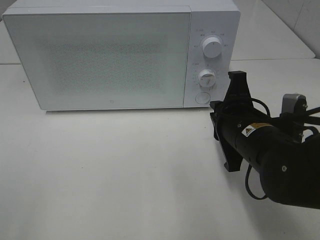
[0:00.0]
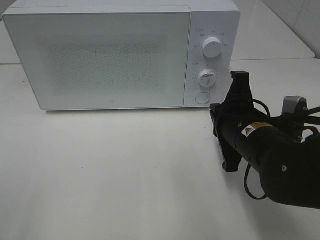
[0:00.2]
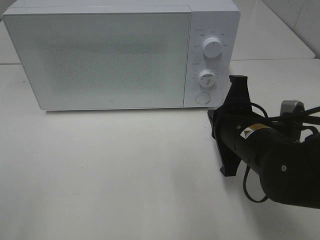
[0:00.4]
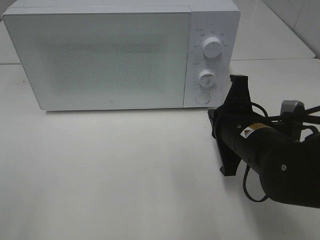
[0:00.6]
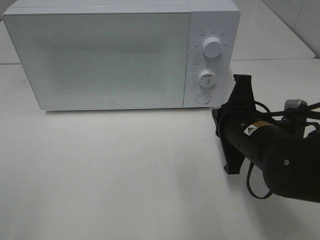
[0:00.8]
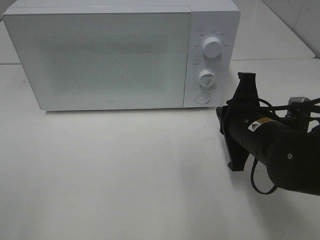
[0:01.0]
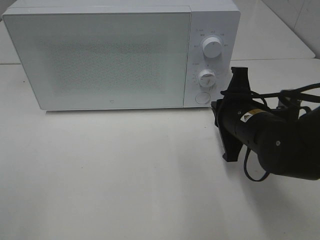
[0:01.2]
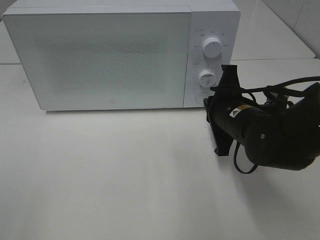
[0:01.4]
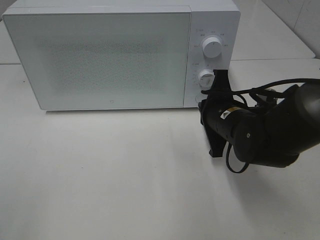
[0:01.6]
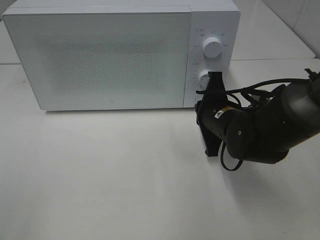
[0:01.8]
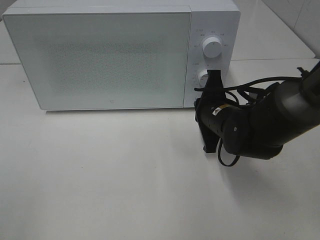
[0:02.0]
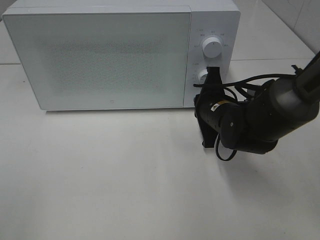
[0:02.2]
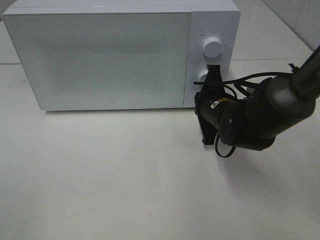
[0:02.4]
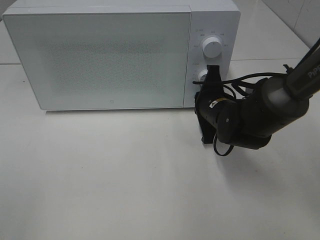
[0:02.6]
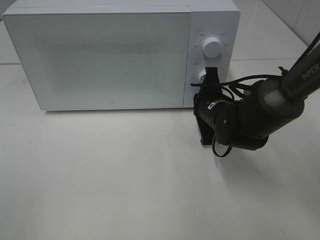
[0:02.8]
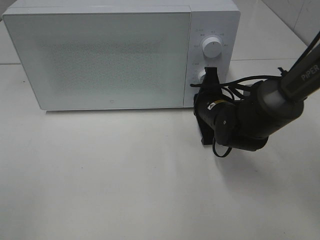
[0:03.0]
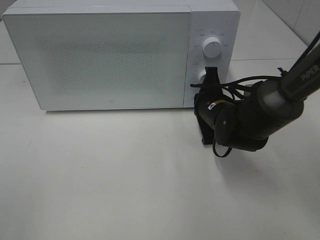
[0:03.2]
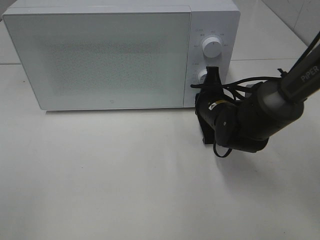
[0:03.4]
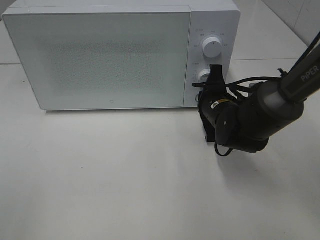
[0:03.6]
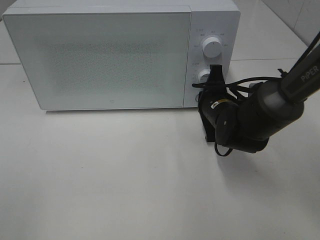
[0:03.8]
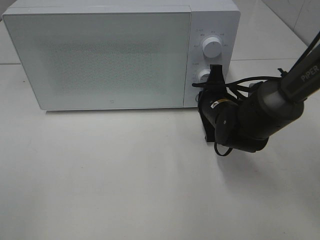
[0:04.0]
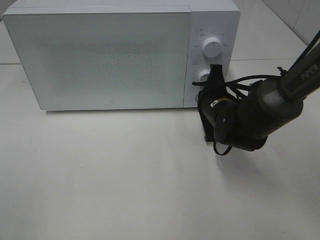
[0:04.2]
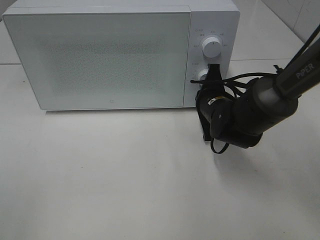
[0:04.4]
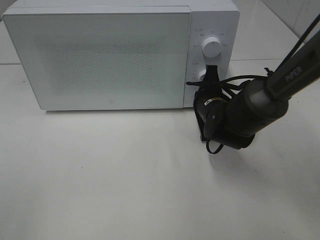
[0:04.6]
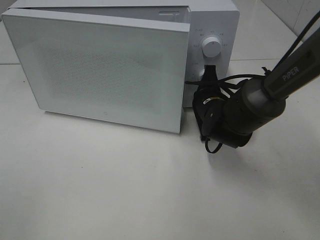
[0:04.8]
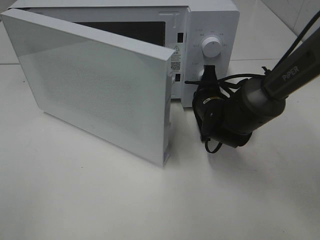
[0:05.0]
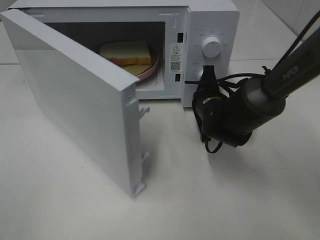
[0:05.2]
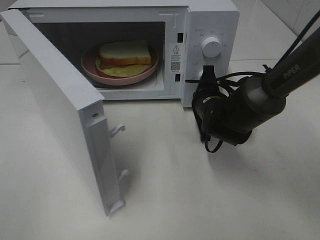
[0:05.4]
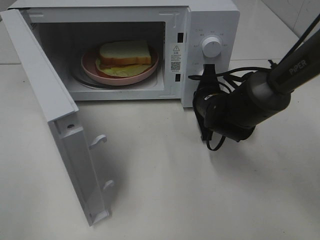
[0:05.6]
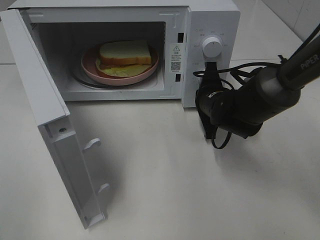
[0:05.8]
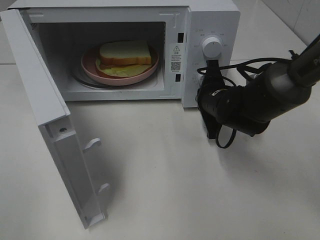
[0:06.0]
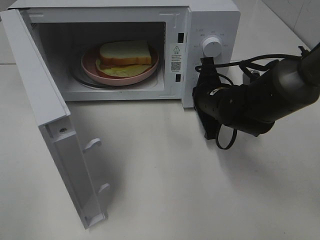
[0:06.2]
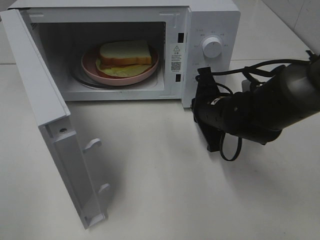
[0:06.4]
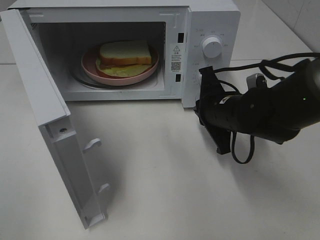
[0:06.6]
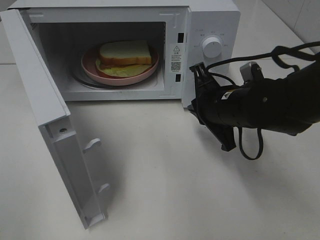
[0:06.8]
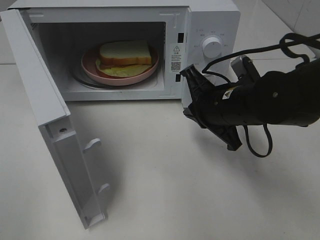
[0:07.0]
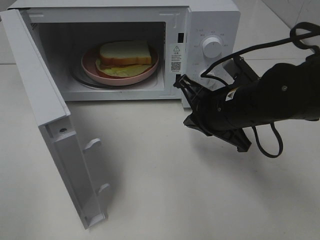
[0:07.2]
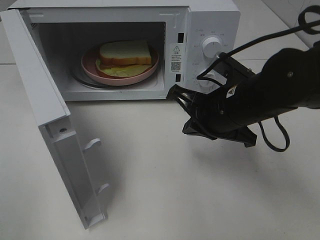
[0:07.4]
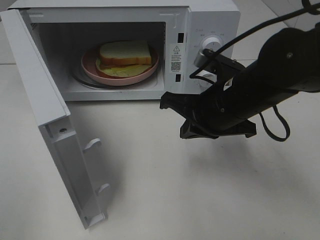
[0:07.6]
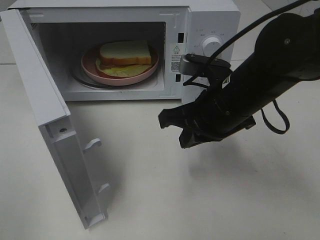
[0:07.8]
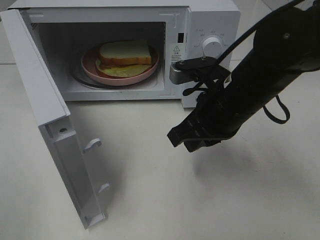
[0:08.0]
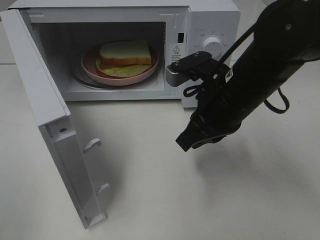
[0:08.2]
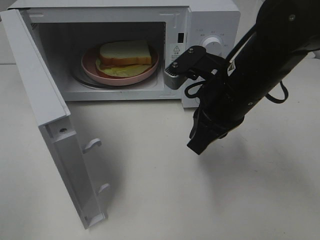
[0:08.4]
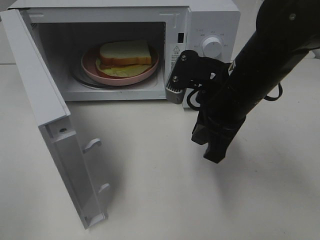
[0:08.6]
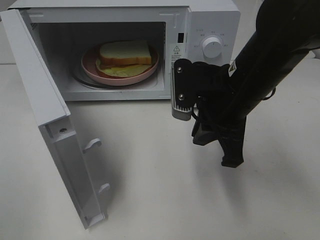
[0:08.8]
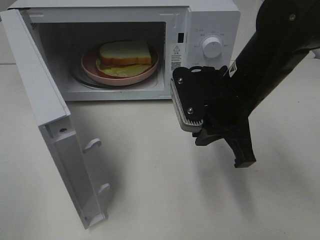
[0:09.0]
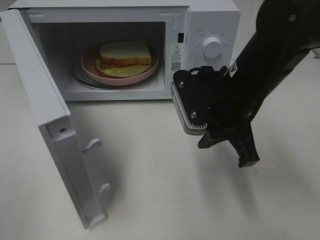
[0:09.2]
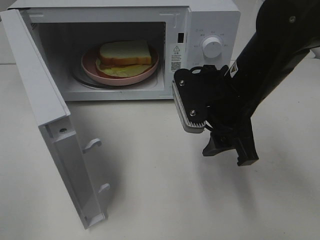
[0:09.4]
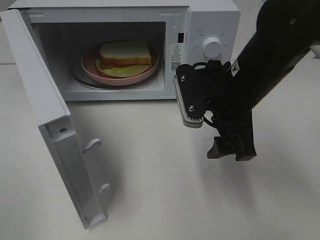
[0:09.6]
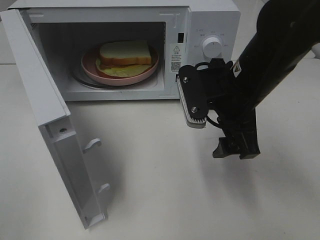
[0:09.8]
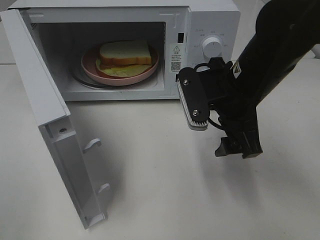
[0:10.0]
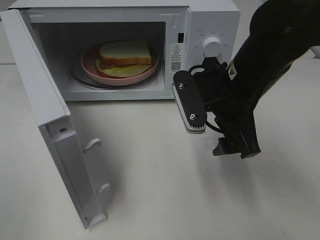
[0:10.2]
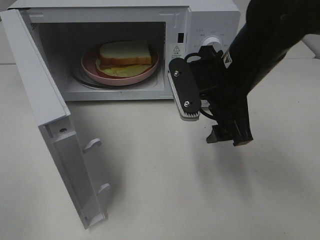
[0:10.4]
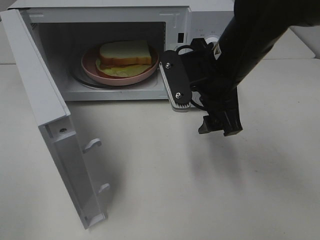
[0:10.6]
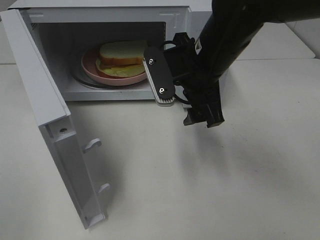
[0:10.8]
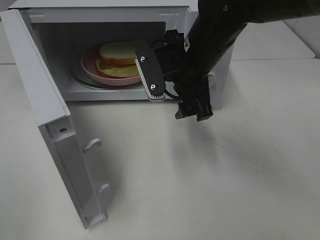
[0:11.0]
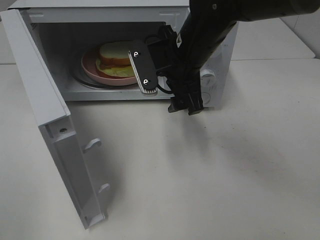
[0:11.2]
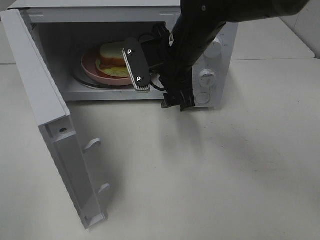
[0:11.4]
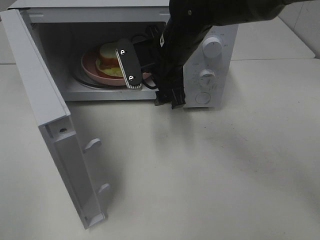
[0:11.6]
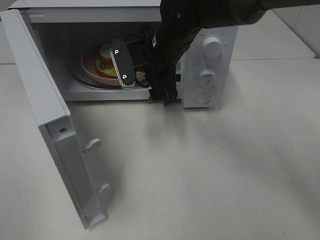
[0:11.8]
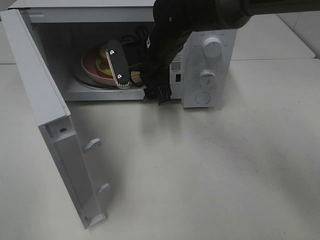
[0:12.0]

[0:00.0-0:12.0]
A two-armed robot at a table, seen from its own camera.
Task of the whole recording: Heat Sandwich.
Step, 0:00.0 to 0:06.2: Right hand: press the switch.
0:00.0 to 0:01.6: The right gripper goes approximately 5 cm forward.
0:01.6 to 0:03.0: The right gripper goes roughly 5 cm forward.
0:03.0 to 0:04.4: Both grippers stay put.
0:06.0 to 0:07.6: The right gripper shifts some 10 cm backward and upward.
0:09.0 to 0:10.4: The right gripper opens up.
0:10.4 to 0:12.0: The right gripper moves forward and to the left, approximately 15 cm.

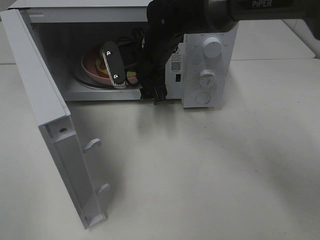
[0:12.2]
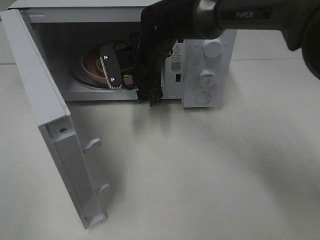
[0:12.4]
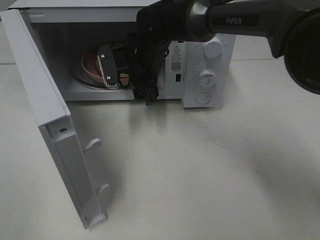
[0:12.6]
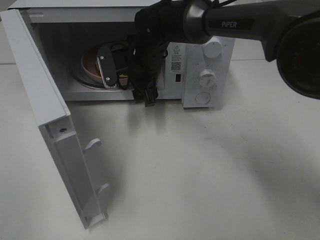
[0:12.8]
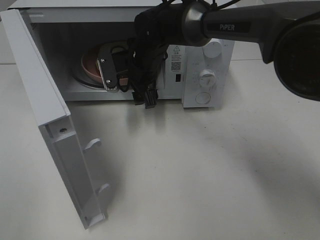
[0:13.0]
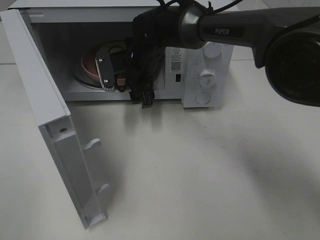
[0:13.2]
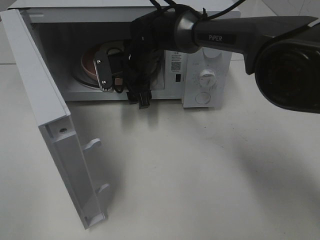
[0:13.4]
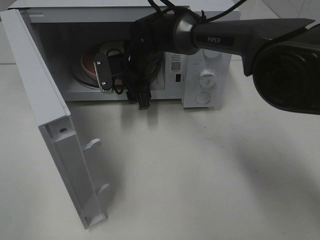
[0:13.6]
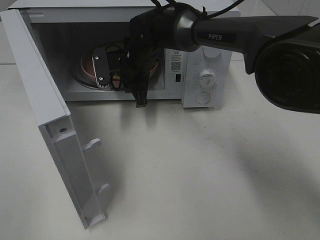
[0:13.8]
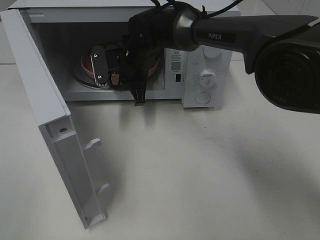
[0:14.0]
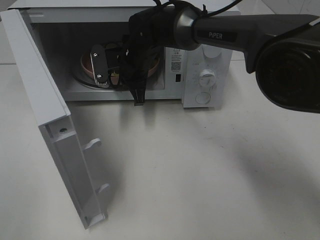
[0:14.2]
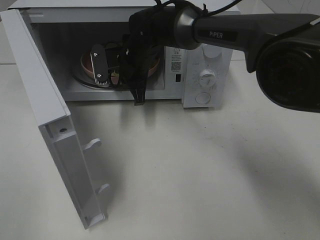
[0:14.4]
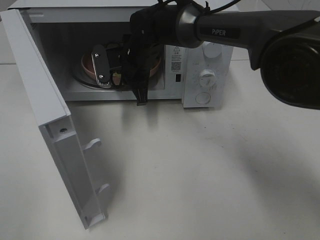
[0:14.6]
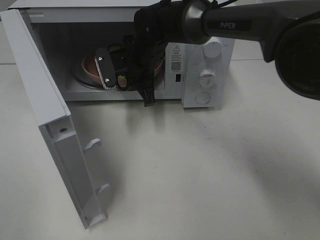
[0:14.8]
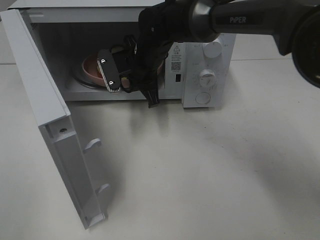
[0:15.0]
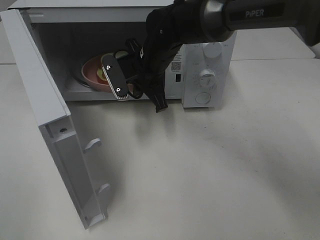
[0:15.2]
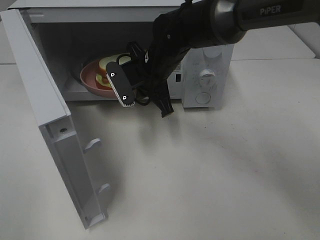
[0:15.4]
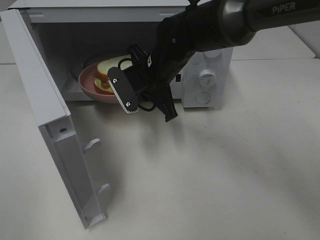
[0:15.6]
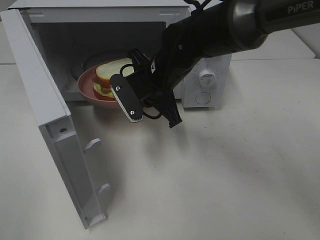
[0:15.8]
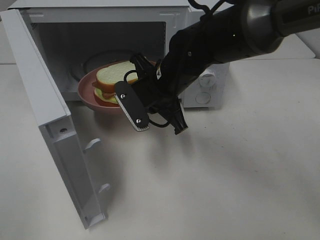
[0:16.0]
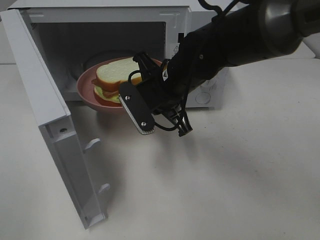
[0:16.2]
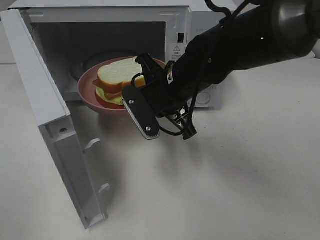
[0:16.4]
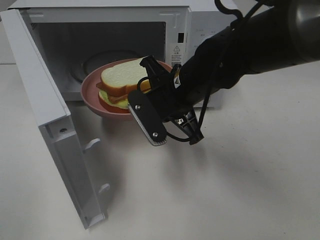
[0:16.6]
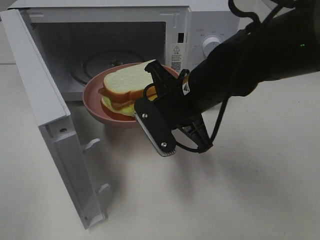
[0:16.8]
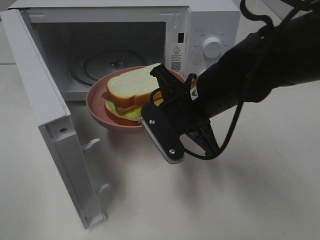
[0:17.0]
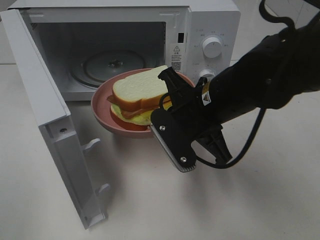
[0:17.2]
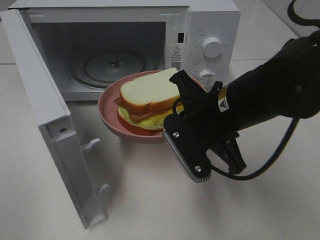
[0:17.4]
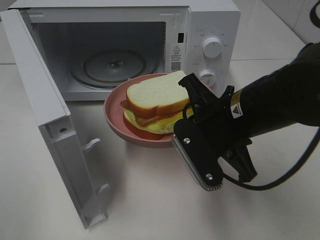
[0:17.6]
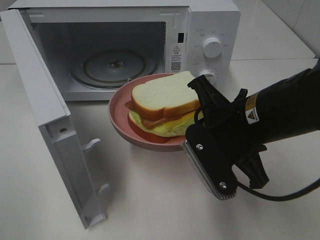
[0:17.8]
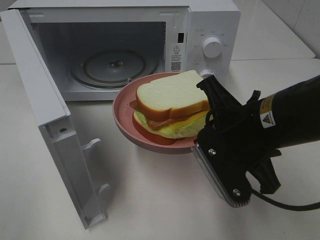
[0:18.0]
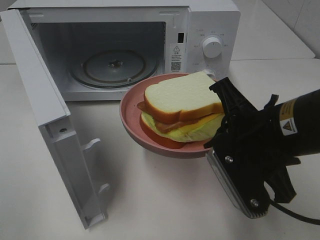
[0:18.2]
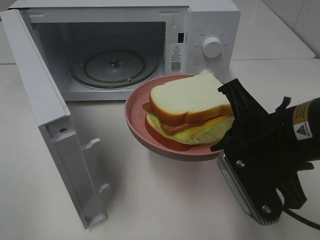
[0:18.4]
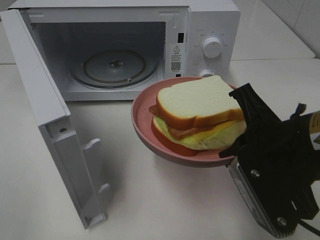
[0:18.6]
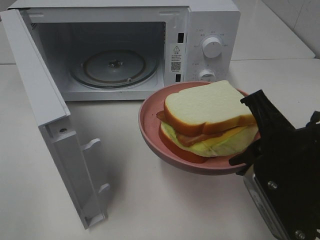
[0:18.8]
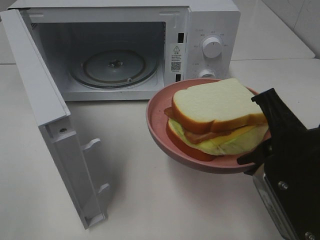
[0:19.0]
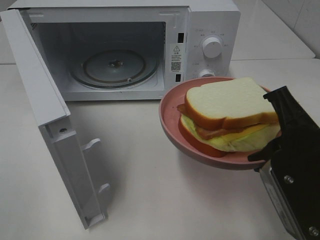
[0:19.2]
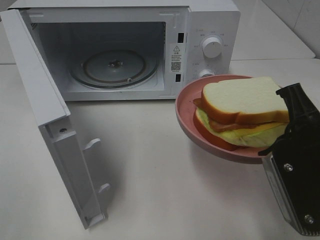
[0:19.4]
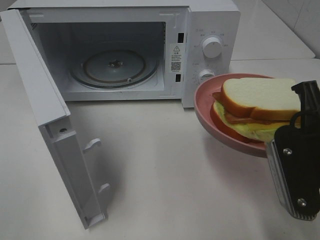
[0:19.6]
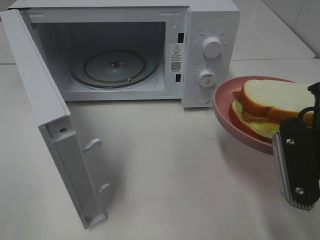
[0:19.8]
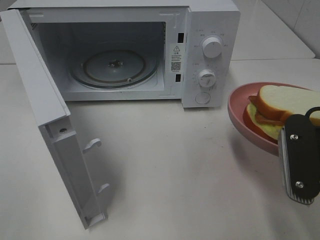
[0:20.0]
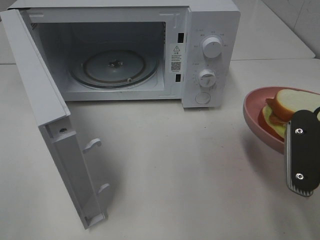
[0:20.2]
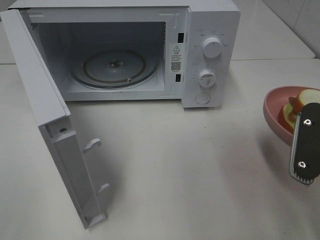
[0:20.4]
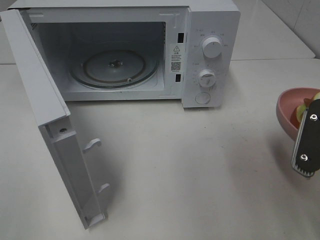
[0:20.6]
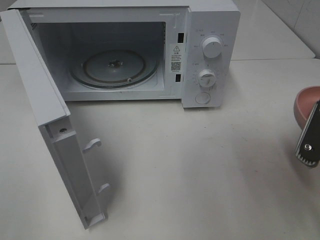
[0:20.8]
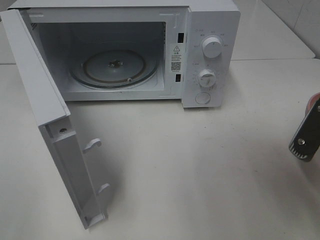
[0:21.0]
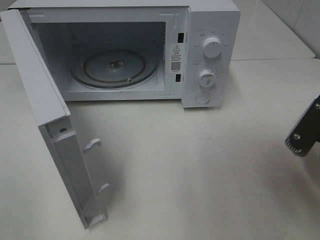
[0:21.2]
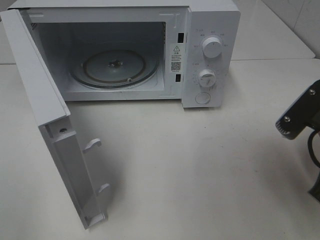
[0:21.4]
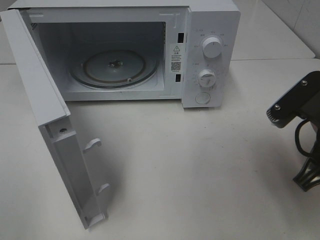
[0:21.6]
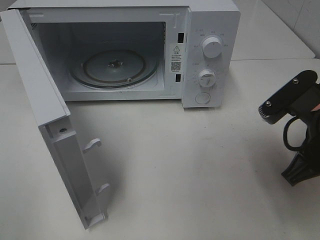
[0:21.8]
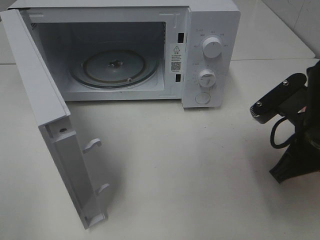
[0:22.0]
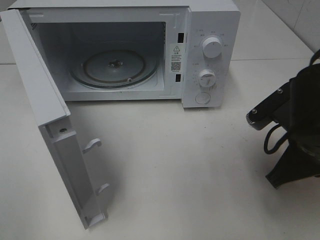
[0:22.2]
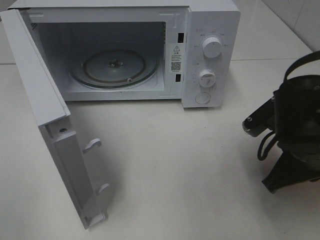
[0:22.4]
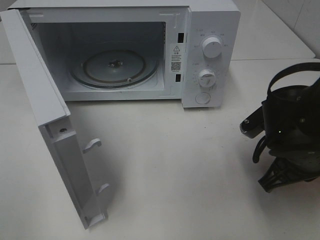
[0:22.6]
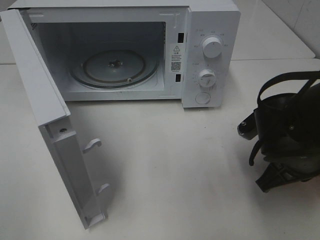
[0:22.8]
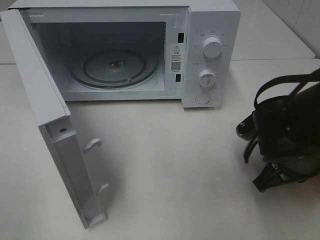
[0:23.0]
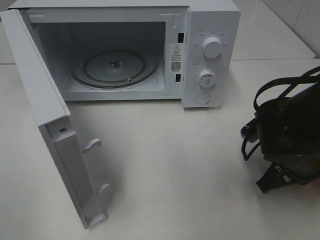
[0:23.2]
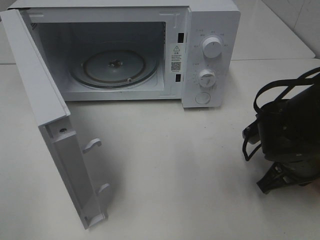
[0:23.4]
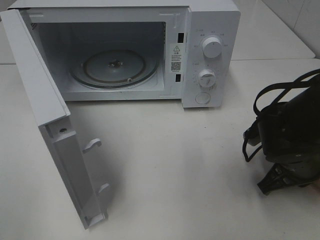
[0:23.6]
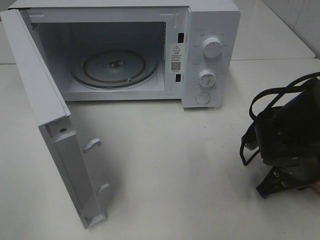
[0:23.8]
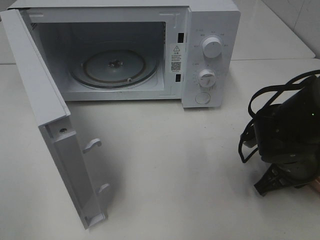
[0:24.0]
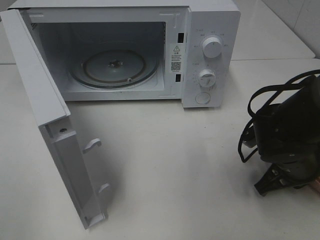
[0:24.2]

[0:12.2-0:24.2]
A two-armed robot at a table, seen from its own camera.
Task of the whole recording: Heat Sandwich.
Step, 0:12.2 to 0:14.2: Right hand: grab the plate with the sandwich.
0:12.2 to 0:13.8: The right gripper moves about 5 cm, and closes its fingers.
0:13.8 to 0:15.2: The right gripper ends up some 5 cm from where it was.
0:15.2 to 0:16.6: The right gripper goes approximately 10 cm backward and to the right.
0:16.6 to 0:18.2: The right gripper travels backward and to the right by approximately 15 cm.
0:18.2 to 0:19.8: The right gripper shifts approximately 5 cm to the right.
0:21.2 to 0:22.6: The right gripper shifts roughly 10 cm downward and forward.
0:22.6 to 0:24.2: The right gripper travels downward by about 5 cm.
